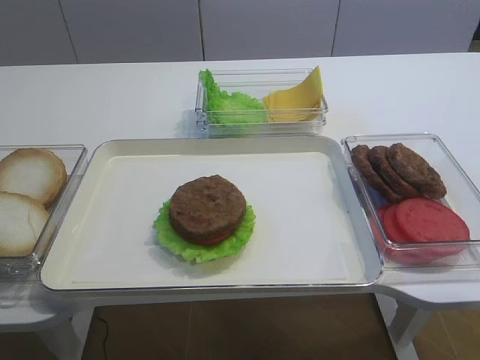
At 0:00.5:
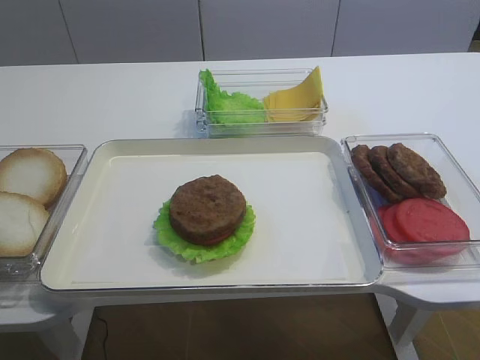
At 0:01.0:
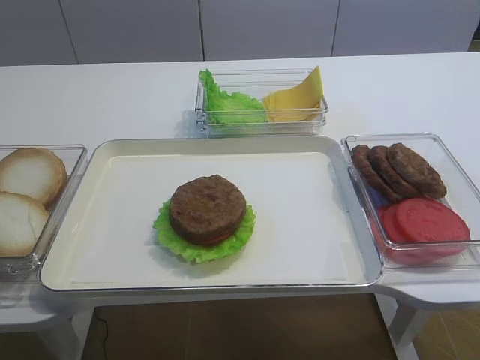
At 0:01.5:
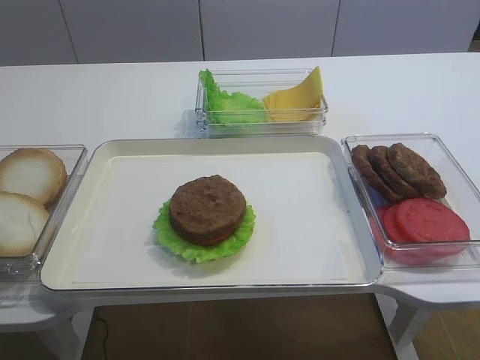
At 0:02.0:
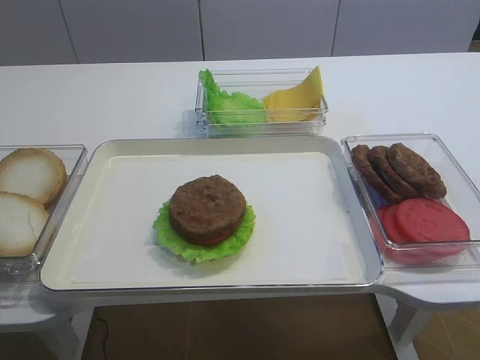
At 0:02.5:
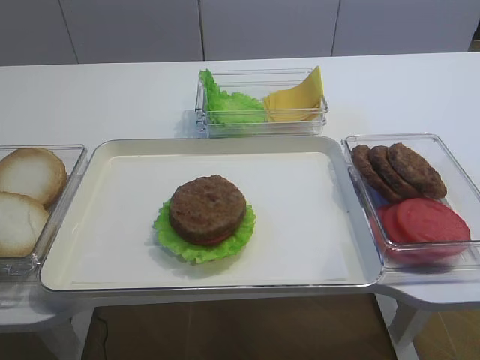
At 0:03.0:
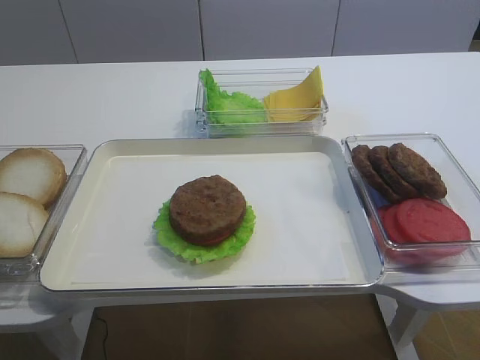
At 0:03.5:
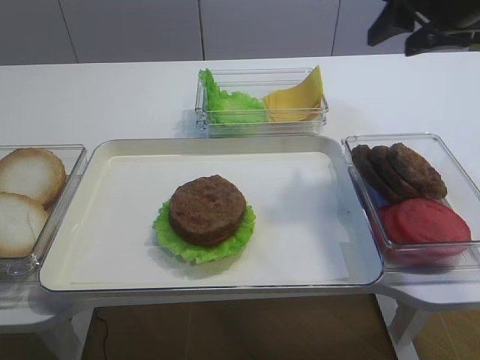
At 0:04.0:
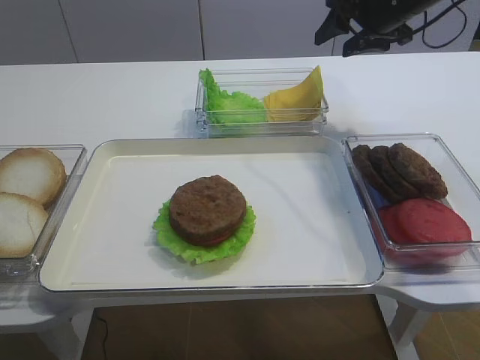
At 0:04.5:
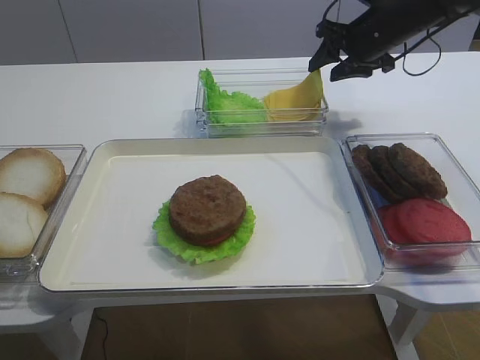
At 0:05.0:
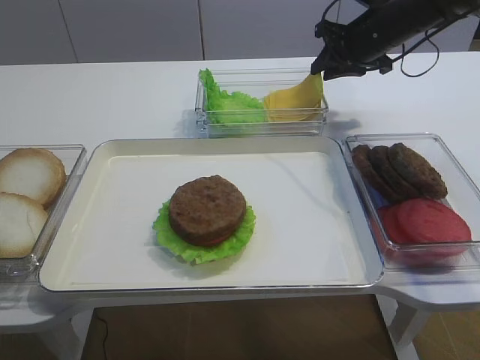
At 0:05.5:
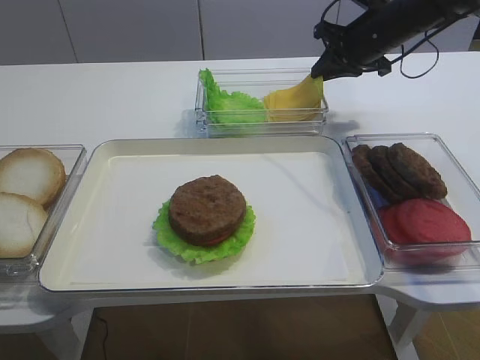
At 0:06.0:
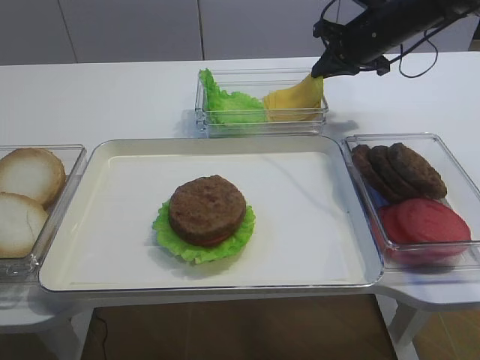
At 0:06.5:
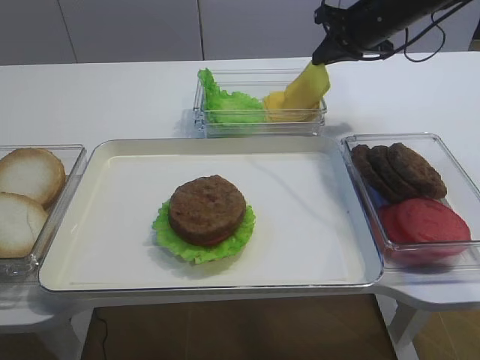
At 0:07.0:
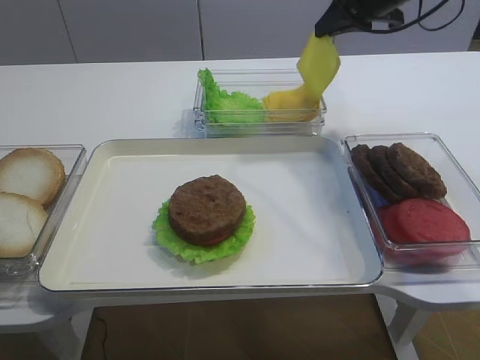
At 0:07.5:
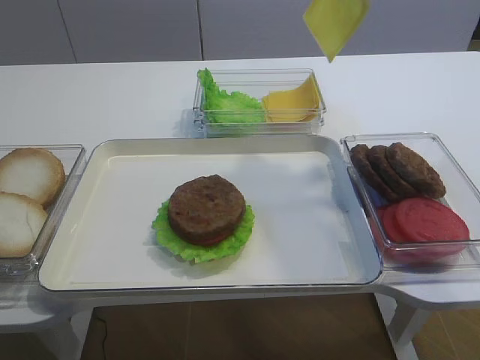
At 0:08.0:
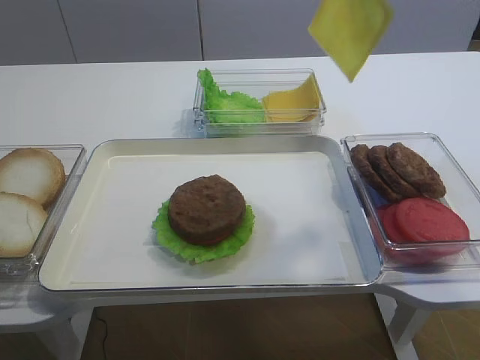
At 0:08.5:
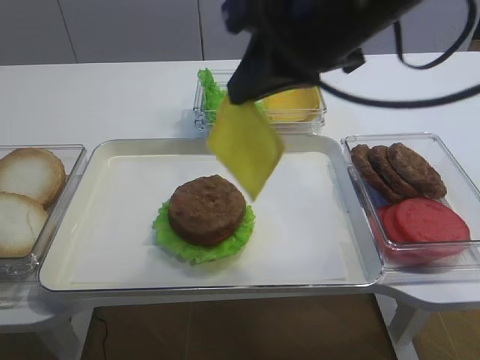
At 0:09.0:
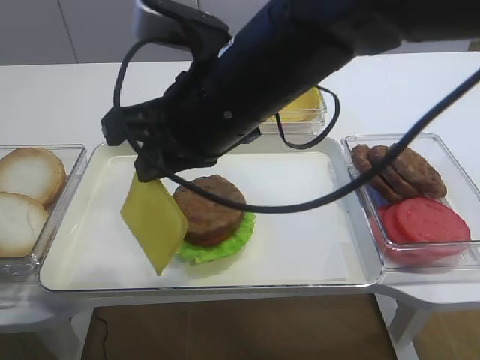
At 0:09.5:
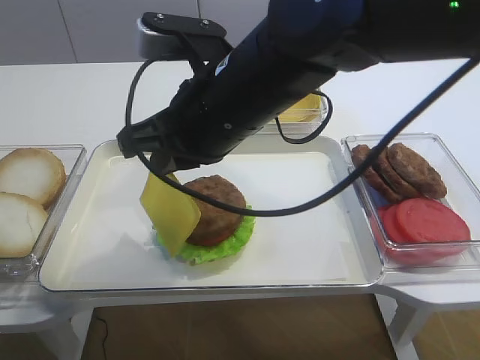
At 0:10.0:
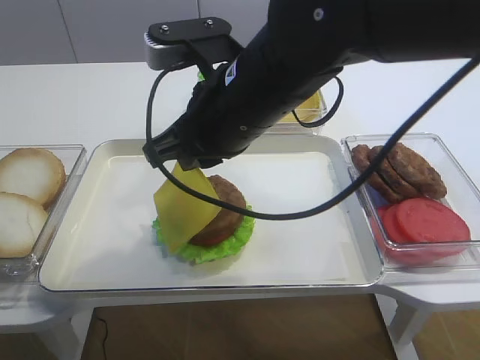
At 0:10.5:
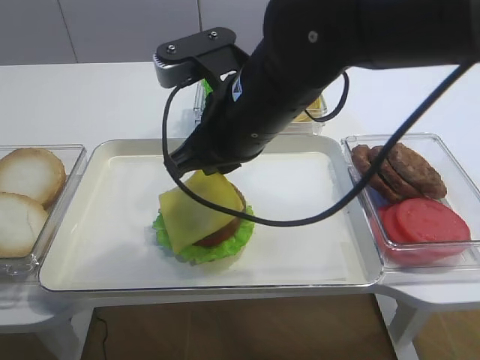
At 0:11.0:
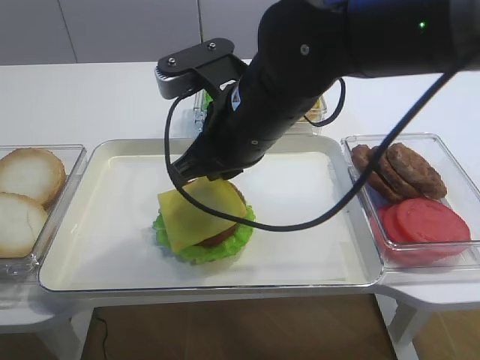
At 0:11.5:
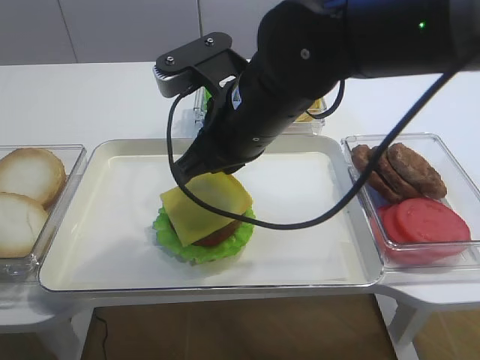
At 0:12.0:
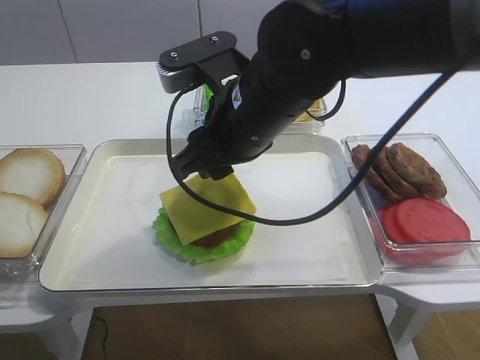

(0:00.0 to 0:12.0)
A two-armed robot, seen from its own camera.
Step, 0:00.0 - 0:06.5: Pick up the cheese slice with the right gripper.
0:02.0 - 0:04.0: The right gripper is displaced forward by roughly 50 cm.
0:04.0 - 0:06.0: The right gripper goes about 5 cm downward, and closes.
0:06.0 - 0:08.0: The right gripper shifts approximately 25 cm upward and backward.
0:08.0 - 0:10.0: The right gripper shifts roughly 25 cm to the left, downward and backward.
0:10.0 - 0:12.0: The right gripper opens.

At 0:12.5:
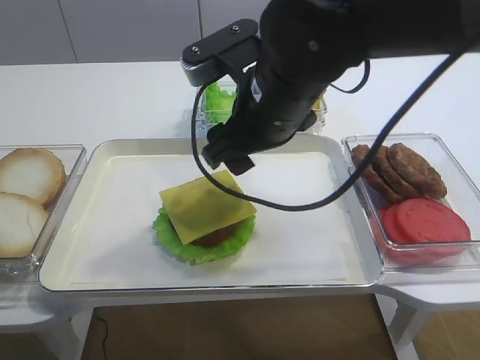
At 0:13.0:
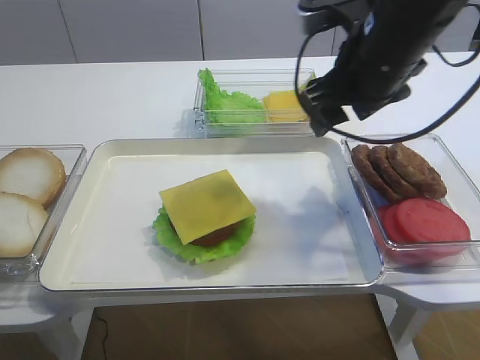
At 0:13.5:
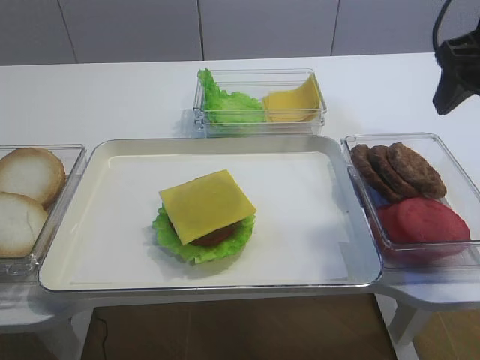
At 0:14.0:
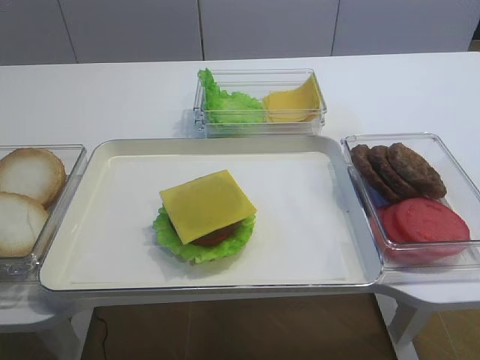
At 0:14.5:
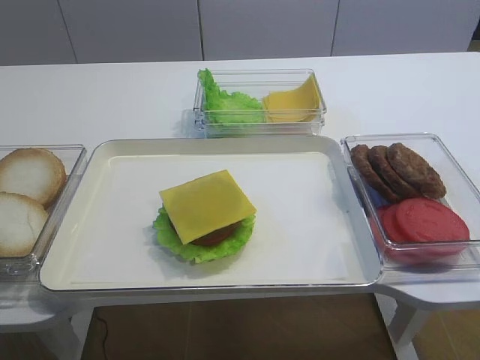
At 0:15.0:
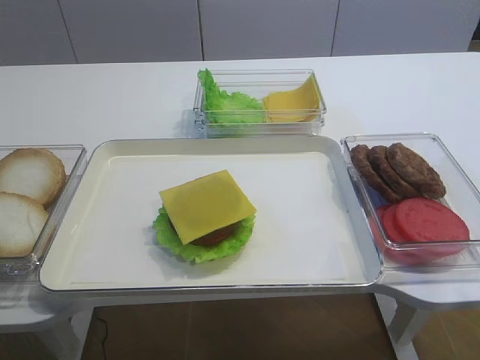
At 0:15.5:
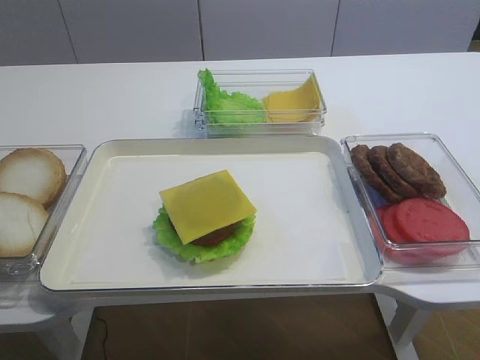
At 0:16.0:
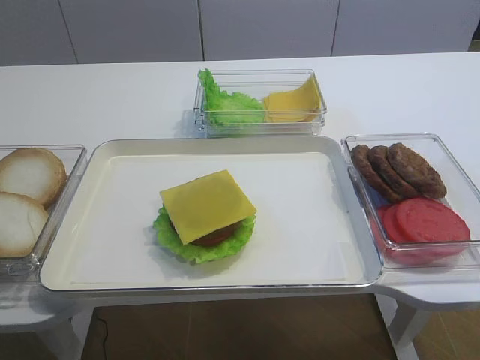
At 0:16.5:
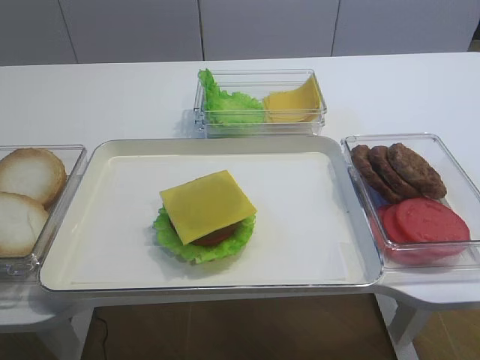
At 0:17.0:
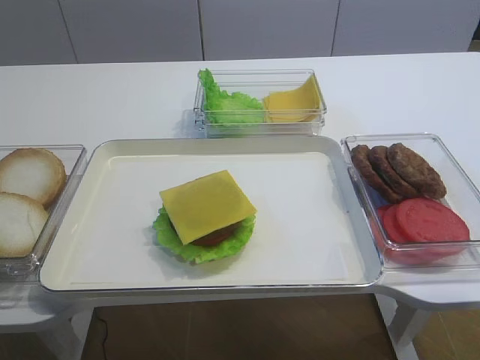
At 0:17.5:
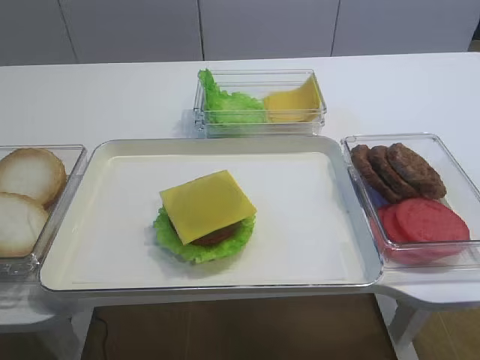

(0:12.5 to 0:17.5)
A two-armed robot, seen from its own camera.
0:12.5 - 0:15.0: The right gripper heads backward and to the right, covering about 35 cm.

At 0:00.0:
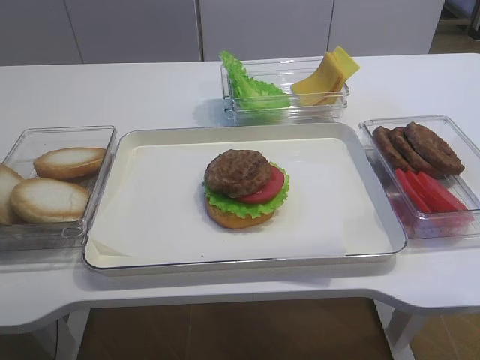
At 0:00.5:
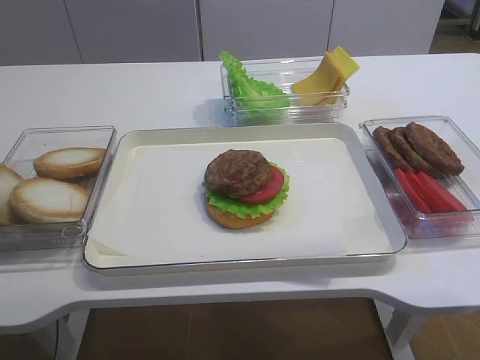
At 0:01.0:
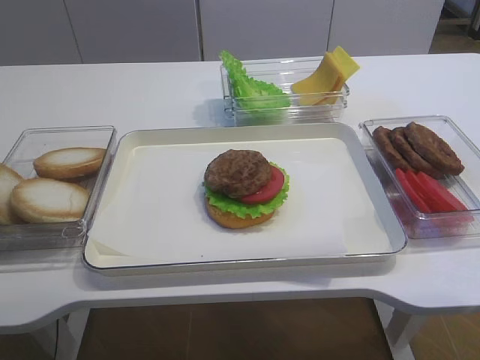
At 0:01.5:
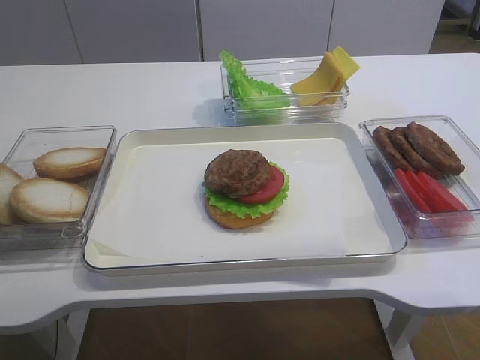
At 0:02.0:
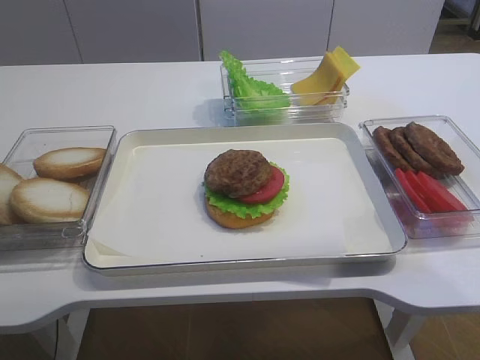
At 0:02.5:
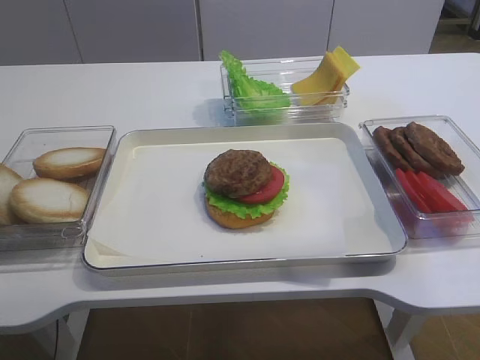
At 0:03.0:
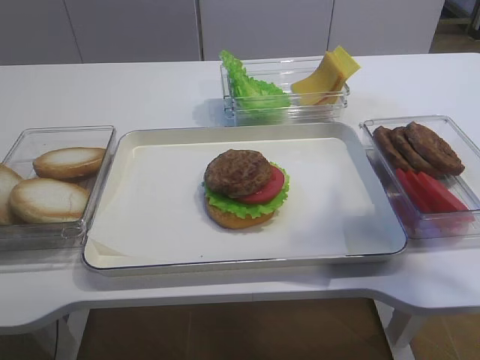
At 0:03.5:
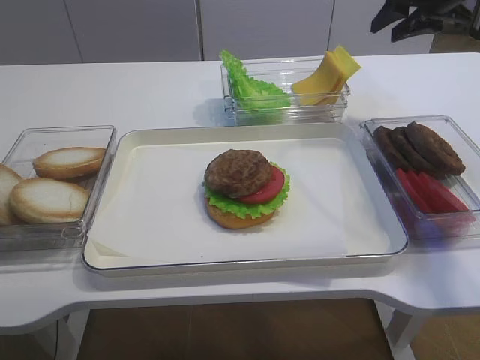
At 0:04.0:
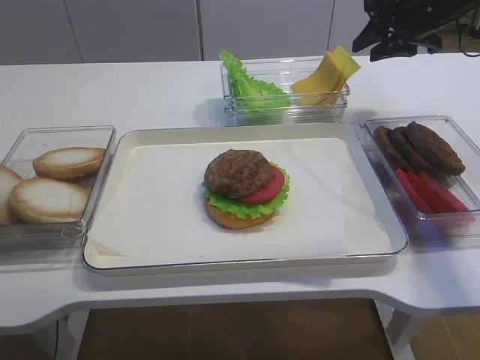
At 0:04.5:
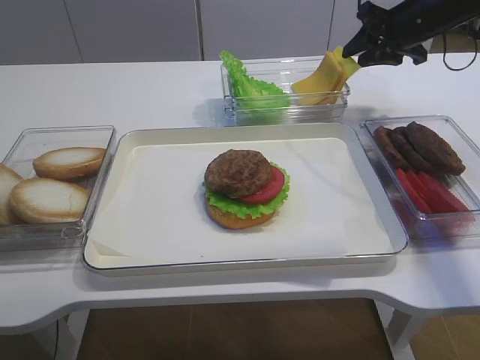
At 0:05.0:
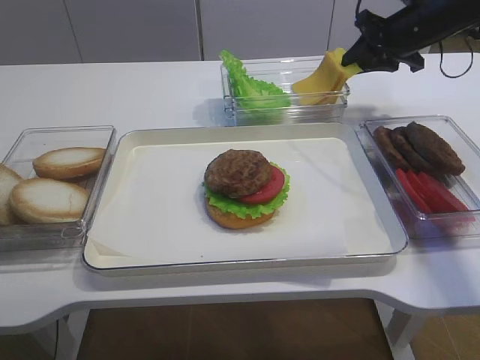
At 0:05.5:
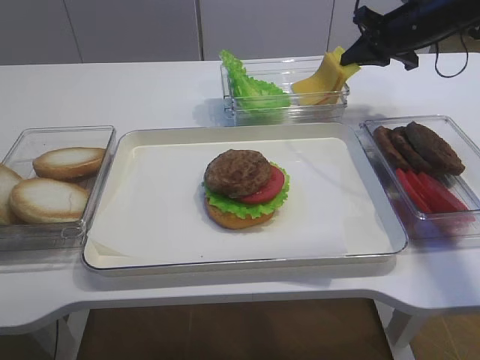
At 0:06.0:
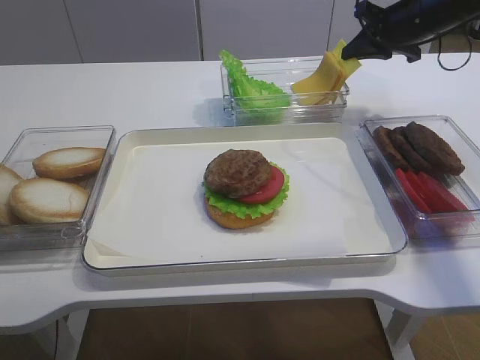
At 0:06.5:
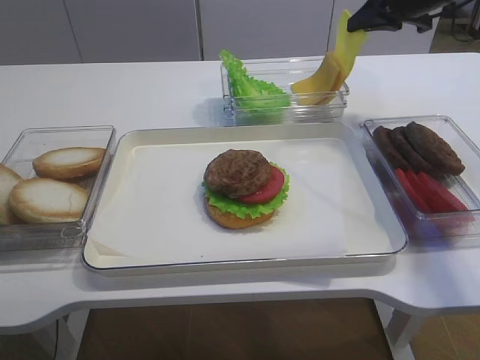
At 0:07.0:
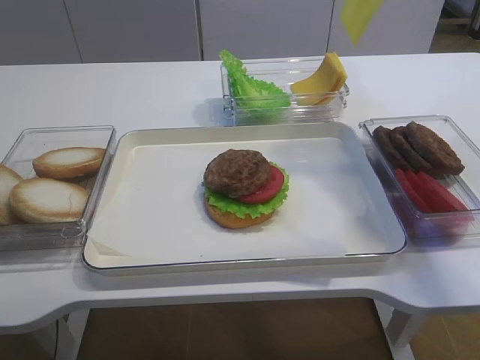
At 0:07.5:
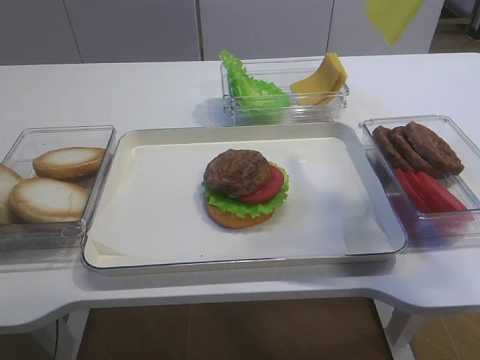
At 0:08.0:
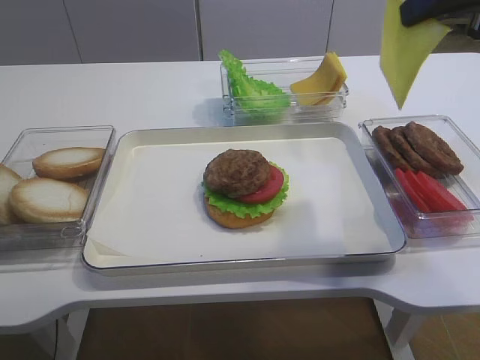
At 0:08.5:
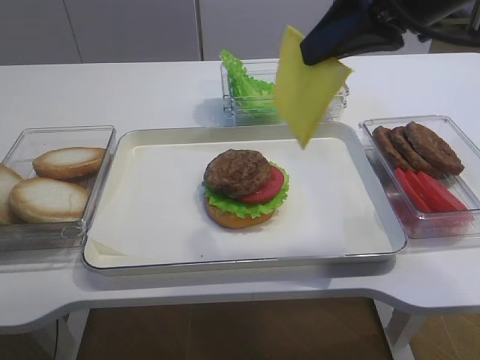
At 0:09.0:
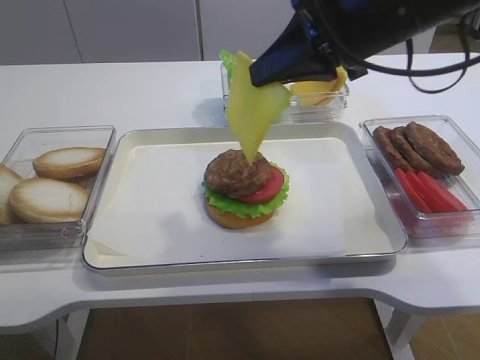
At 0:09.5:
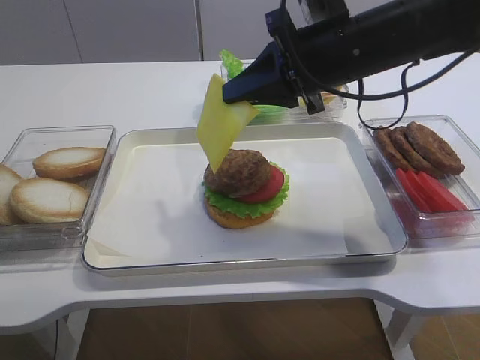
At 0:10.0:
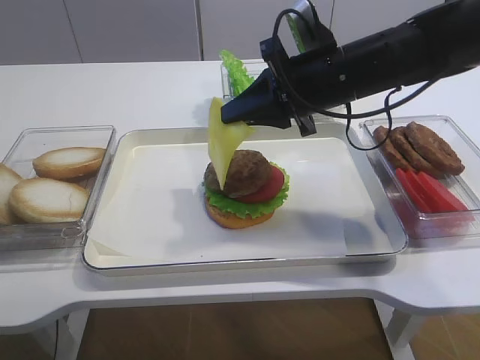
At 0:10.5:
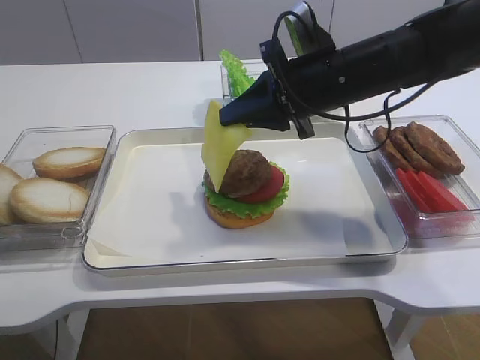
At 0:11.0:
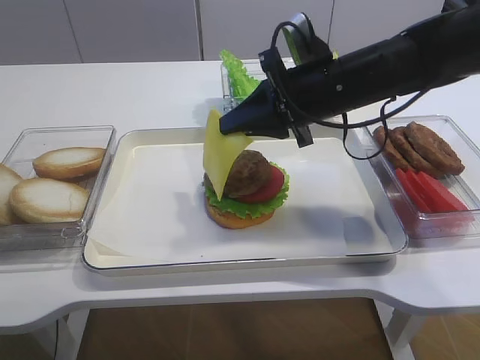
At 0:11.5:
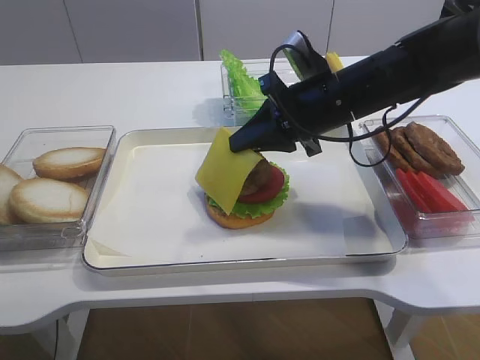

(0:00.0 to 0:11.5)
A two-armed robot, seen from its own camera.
Step, 0:00.0 - 0:06.5: Pick up the cheese slice with the right gripper.
0:02.0 - 0:04.0: The right gripper goes roughly 50 cm forward.
0:04.0 - 0:06.0: The right gripper closes.
0:06.0 - 0:07.5: The right gripper travels upward and backward by about 25 cm.
0:07.5 - 0:09.5: The right gripper moves to the left and downward, approximately 20 cm.
0:09.5 - 0:11.5: The right gripper moves downward, roughly 5 cm.
